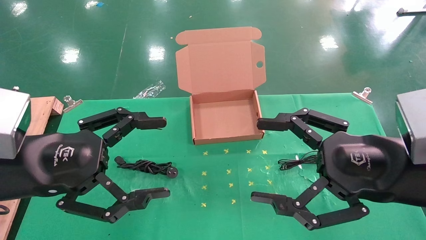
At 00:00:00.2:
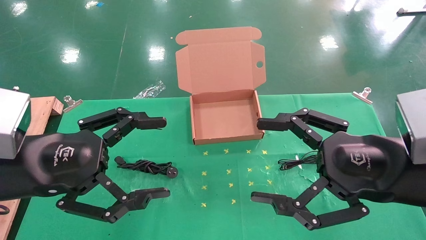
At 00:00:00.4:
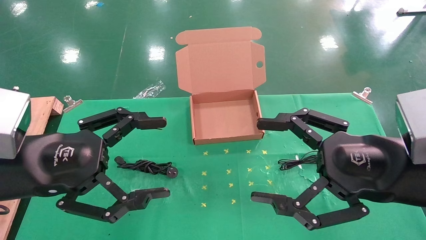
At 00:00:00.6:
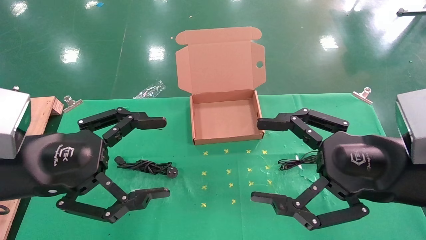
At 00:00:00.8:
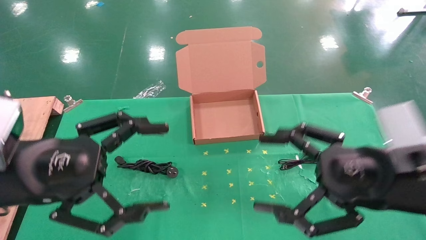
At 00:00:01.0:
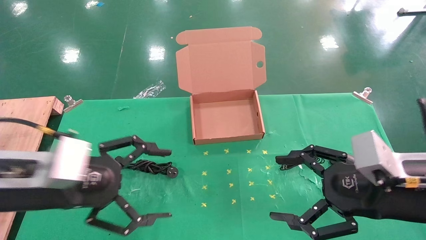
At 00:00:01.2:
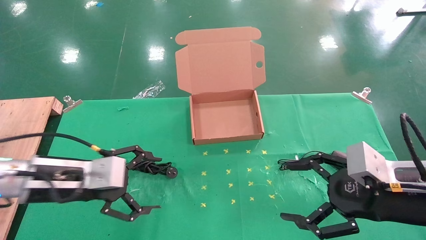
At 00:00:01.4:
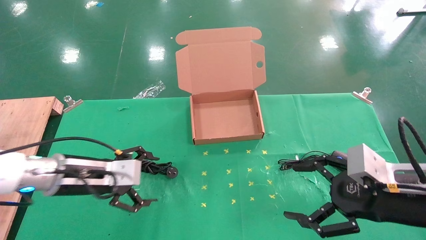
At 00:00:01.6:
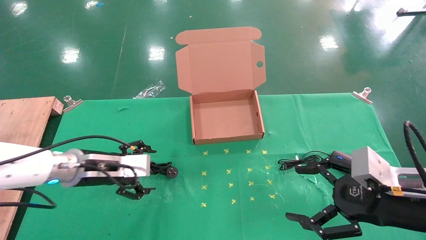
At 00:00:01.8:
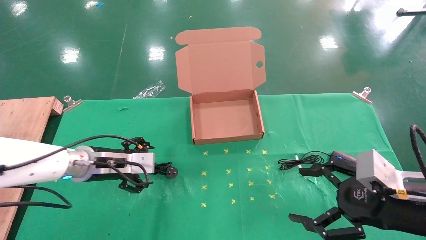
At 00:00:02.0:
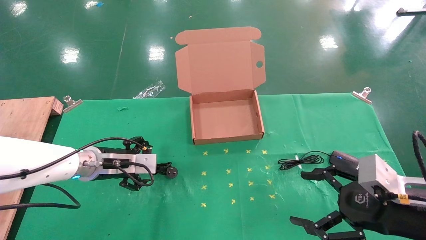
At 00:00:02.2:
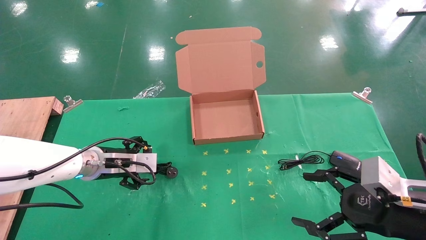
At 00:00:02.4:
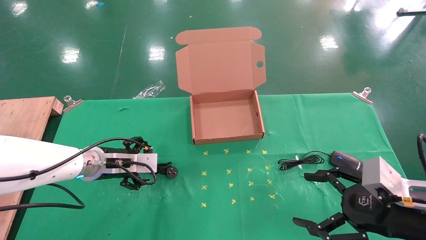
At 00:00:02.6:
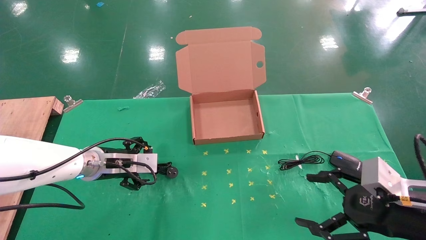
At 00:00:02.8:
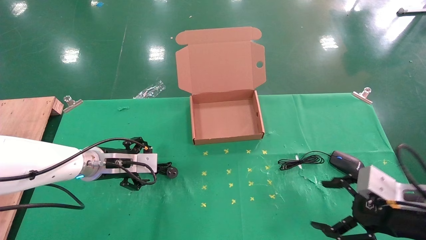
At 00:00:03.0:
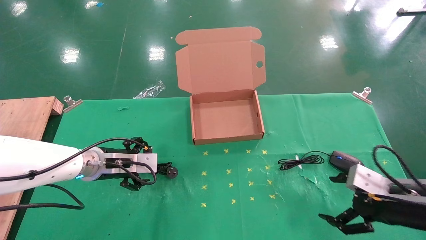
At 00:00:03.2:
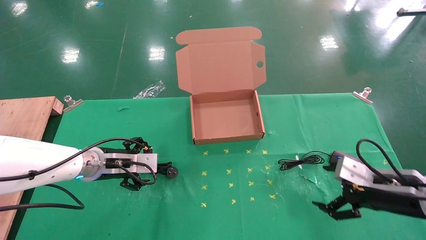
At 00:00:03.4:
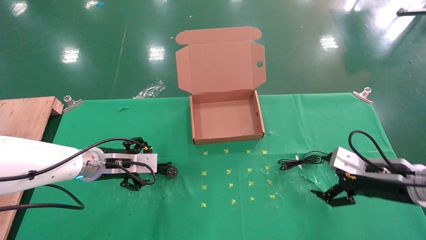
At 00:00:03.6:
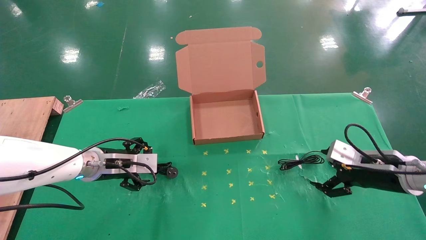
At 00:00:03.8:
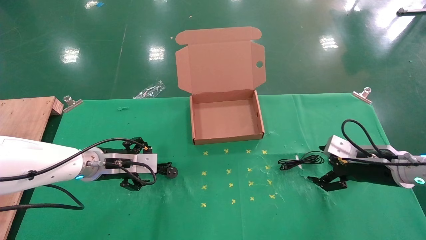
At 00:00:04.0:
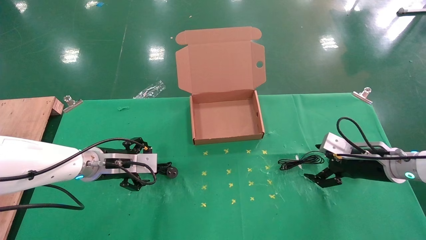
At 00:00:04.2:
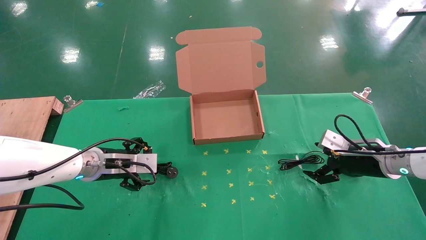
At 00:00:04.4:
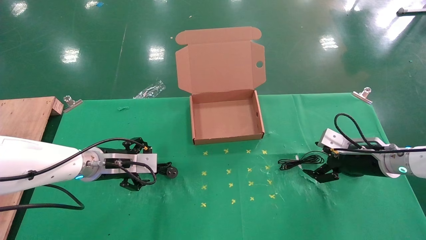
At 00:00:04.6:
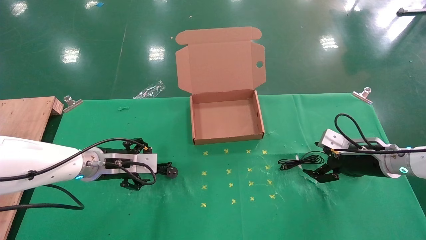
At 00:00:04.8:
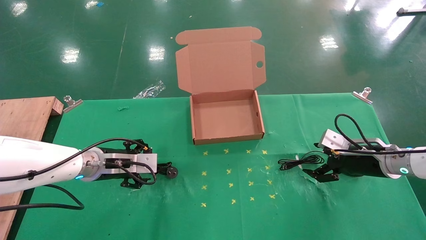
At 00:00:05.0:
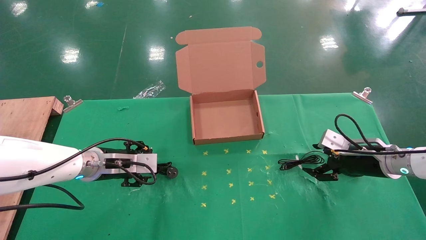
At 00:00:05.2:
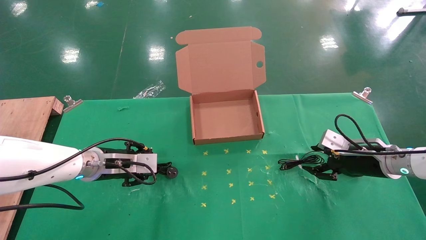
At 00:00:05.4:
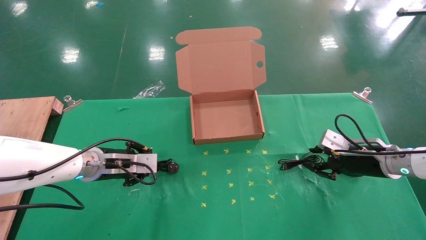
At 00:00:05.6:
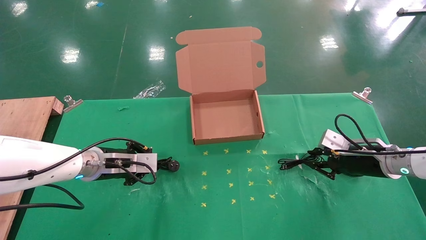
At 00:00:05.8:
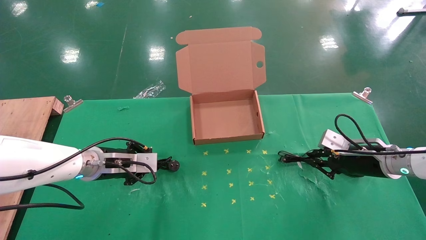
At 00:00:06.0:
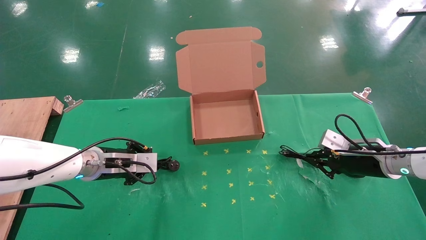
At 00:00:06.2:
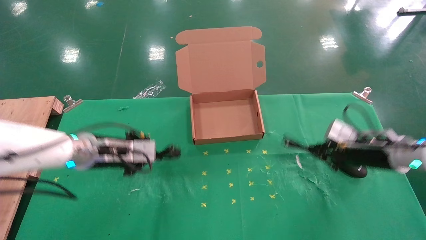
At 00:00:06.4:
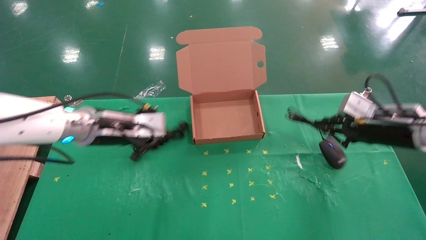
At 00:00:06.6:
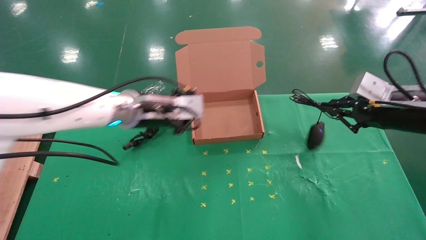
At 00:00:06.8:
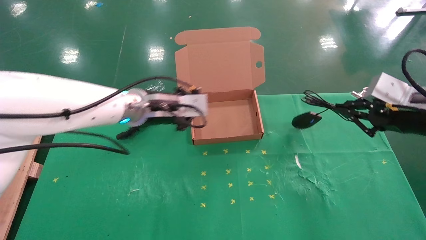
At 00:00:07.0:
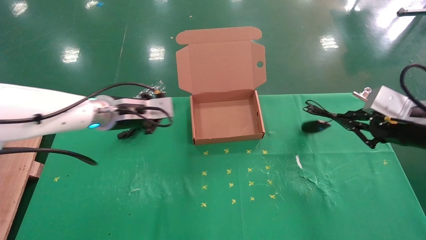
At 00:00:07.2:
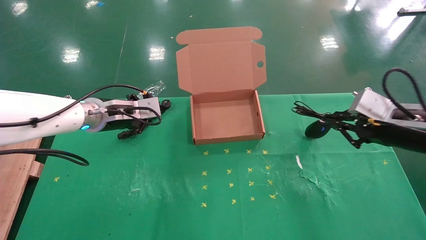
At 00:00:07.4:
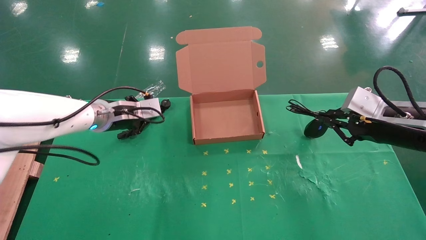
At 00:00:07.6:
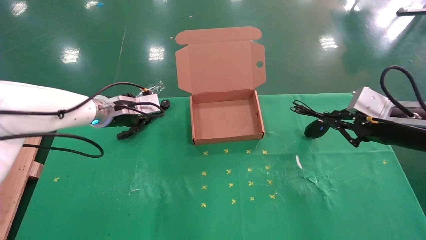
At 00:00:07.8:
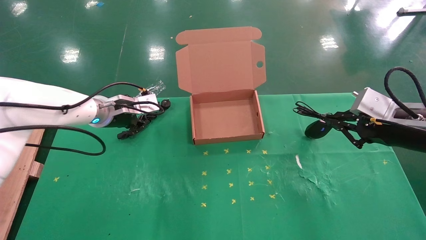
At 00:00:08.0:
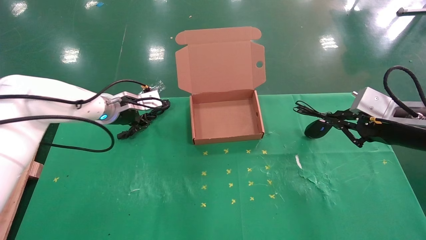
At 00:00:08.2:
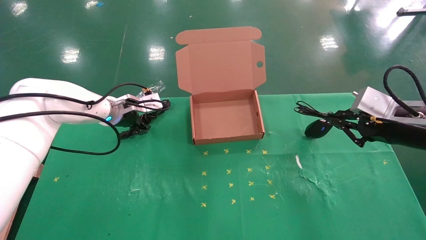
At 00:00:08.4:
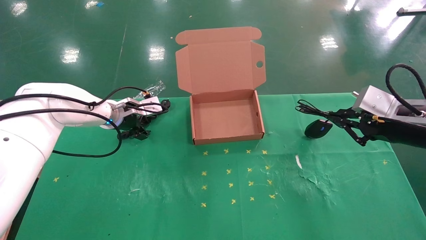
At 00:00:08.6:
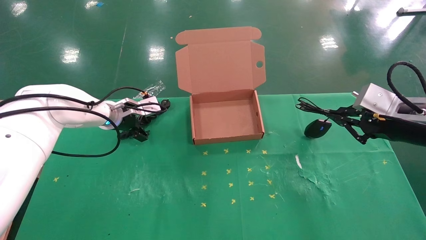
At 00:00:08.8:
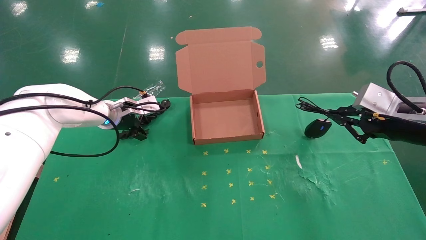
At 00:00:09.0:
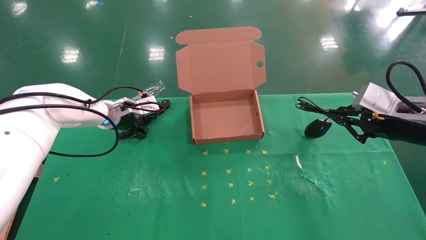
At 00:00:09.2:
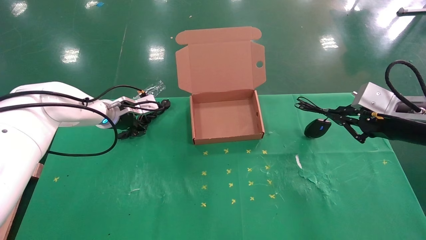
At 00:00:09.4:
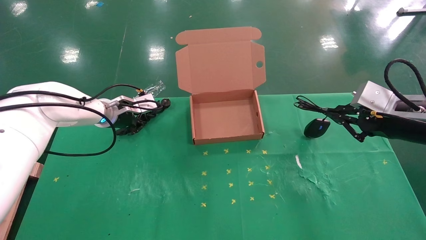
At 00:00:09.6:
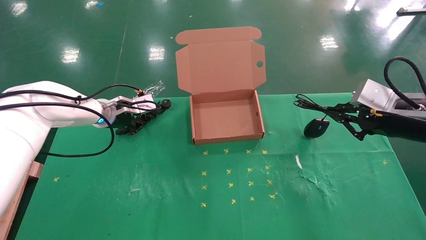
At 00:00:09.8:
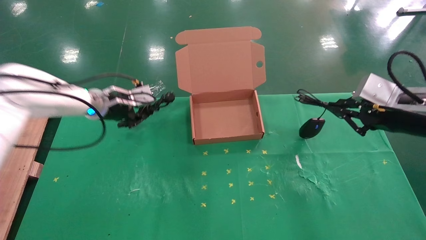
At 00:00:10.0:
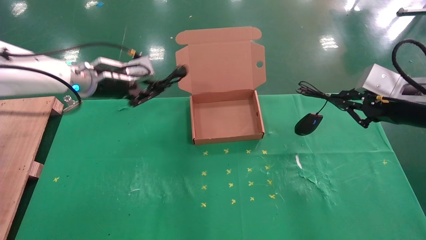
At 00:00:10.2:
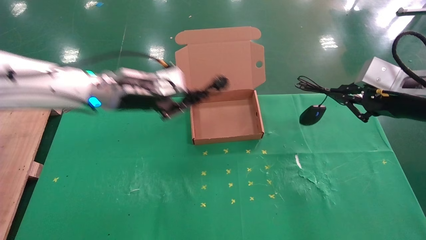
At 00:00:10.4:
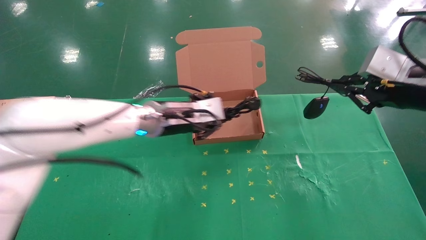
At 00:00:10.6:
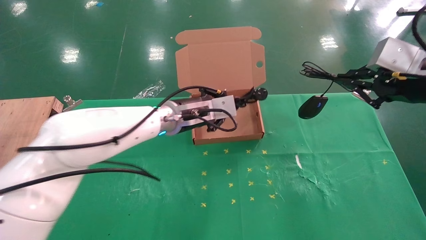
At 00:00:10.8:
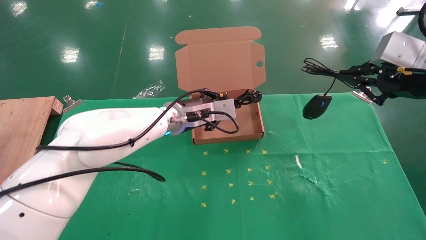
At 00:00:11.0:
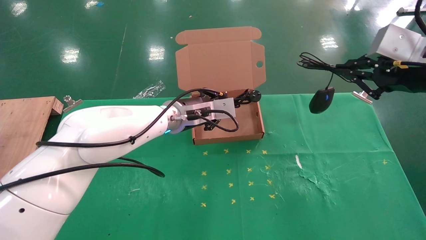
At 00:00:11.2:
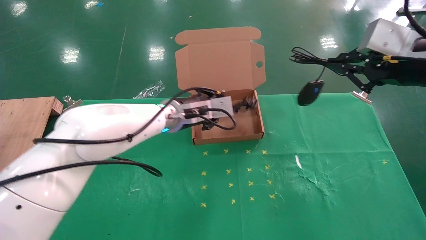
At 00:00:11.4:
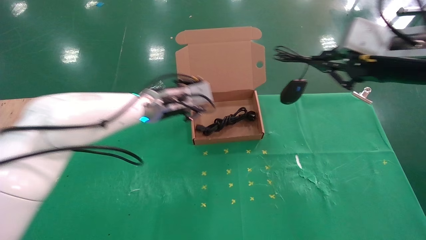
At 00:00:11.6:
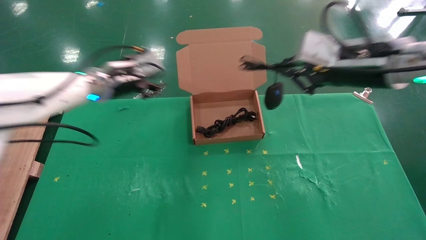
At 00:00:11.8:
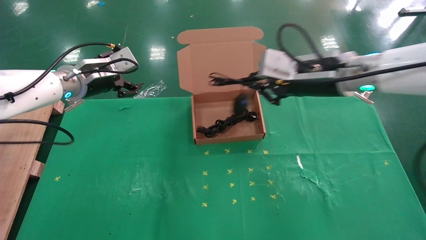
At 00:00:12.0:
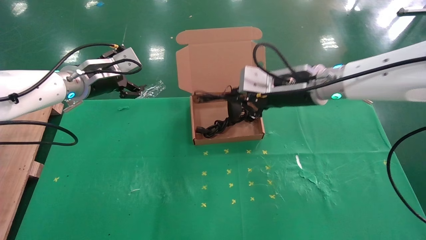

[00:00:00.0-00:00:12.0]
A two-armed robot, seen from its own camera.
Task of the whole recording: grasp data cable left put into box grasp mouse right put into box.
Step, 00:00:01.0 to 00:00:09.2: Simultaneously pick up the mouse and power cord from the accessory packaging area.
00:00:00.0 to 00:00:01.6: The right gripper shifts roughly 10 cm downward and to the right; the left gripper is displaced forward and downward by about 20 cm.
00:00:01.6 to 00:00:03.0: The right gripper is displaced downward by some 5 cm.
00:00:03.0 to 00:00:04.4: The right gripper is displaced forward by some 15 cm.
00:00:04.4 to 00:00:06.0: The left gripper closes. The right gripper closes.
00:00:06.0 to 00:00:07.6: The left gripper is displaced upward and forward by approximately 10 cm, while the right gripper moves upward and backward, some 15 cm.
00:00:07.6 to 00:00:09.0: The left gripper changes place by approximately 5 cm, and opens.
00:00:09.0 to 00:00:10.4: The right gripper shifts approximately 5 cm upward; the left gripper travels to the right and backward by roughly 15 cm, and closes up.
00:00:10.4 to 00:00:12.0: The right gripper travels to the left and forward by approximately 20 cm; the left gripper travels to the left by approximately 15 cm, and opens.

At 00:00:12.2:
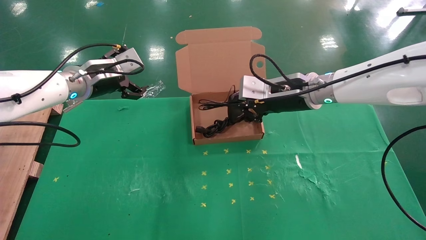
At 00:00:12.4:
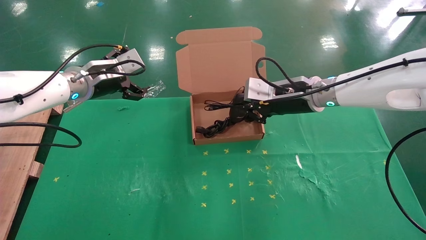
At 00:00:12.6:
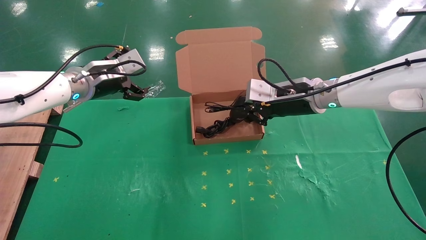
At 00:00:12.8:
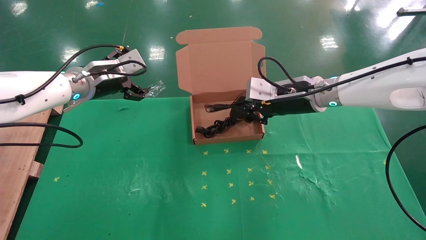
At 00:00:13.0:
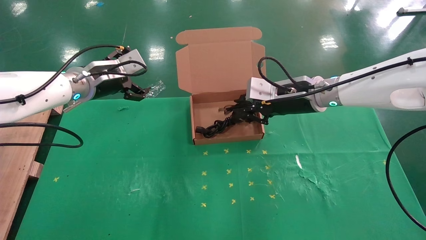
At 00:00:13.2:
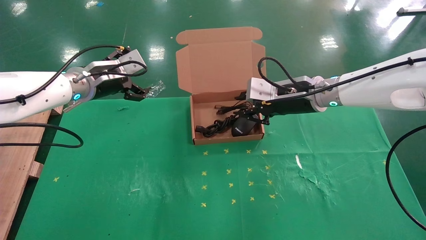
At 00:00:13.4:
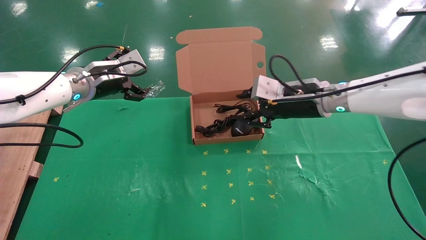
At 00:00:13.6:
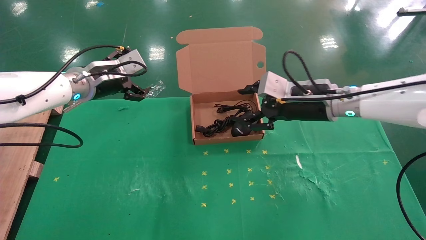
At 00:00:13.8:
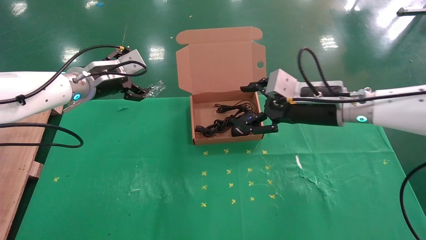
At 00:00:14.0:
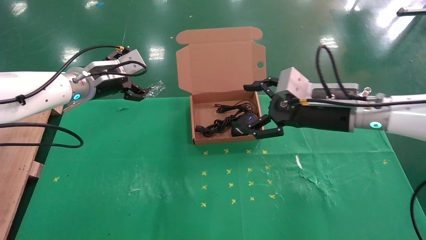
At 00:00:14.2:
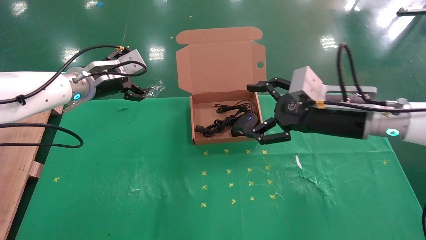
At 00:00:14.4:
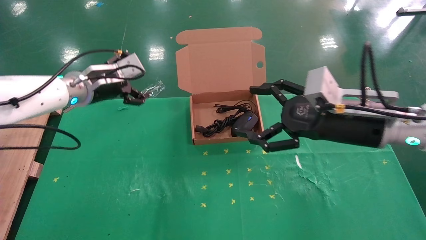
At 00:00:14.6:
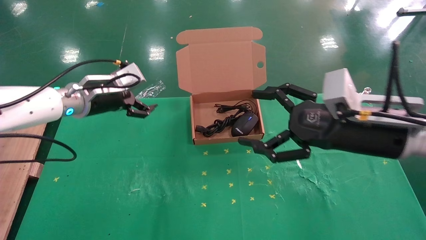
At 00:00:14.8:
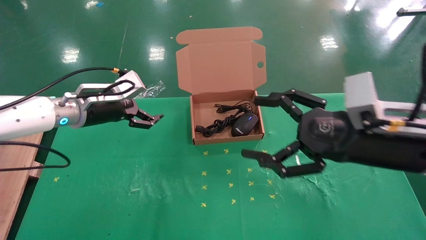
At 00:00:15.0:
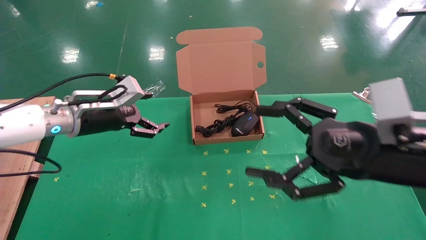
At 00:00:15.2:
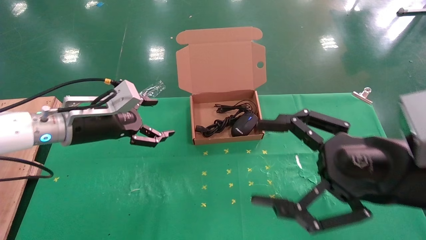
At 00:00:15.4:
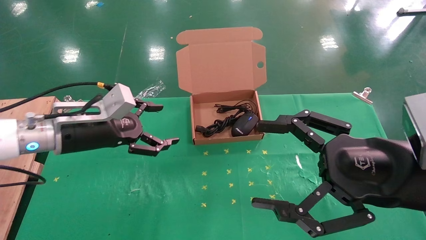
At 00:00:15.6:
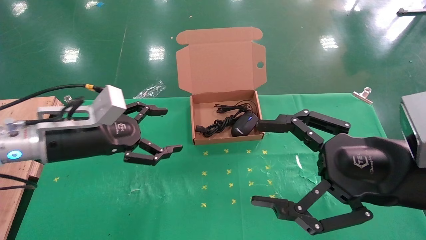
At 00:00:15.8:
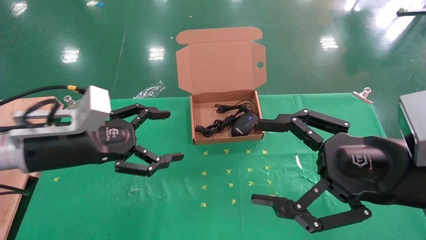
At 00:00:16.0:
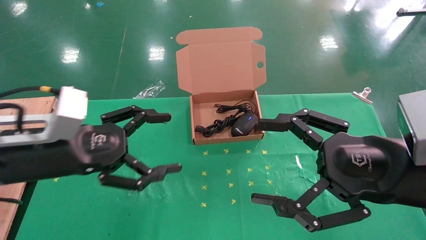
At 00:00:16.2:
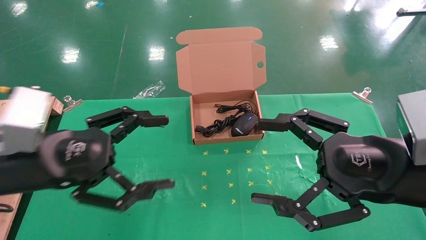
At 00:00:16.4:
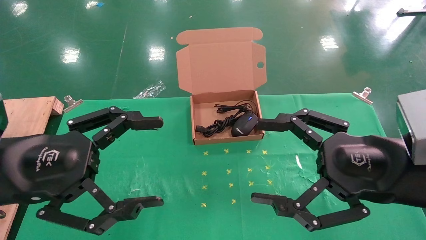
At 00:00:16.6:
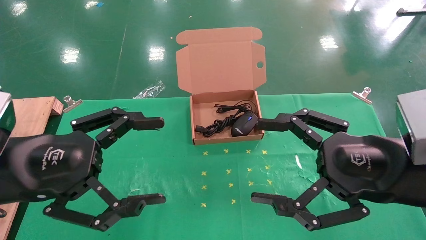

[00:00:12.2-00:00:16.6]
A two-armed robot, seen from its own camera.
Task of the whole recording: grasp data cable left put into box grasp mouse right put into box.
00:00:12.2 to 00:00:13.6: The right gripper opens.
00:00:13.6 to 00:00:15.2: The left gripper shifts approximately 10 cm backward and downward; the right gripper is displaced backward by about 20 cm, and opens.
00:00:15.2 to 00:00:16.6: The left gripper travels backward by about 15 cm.
